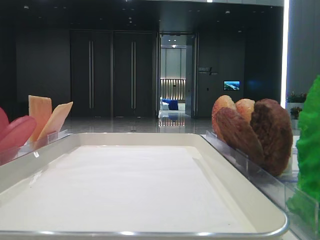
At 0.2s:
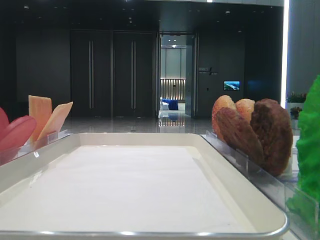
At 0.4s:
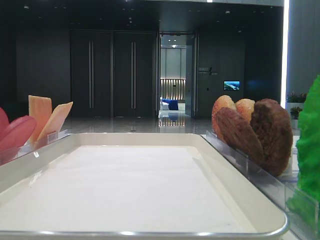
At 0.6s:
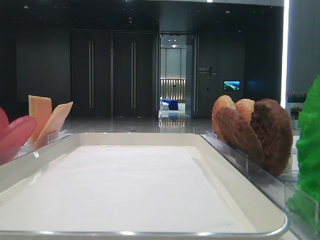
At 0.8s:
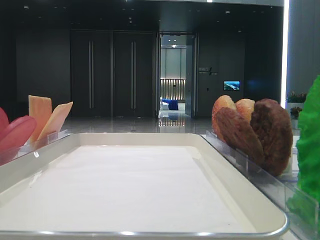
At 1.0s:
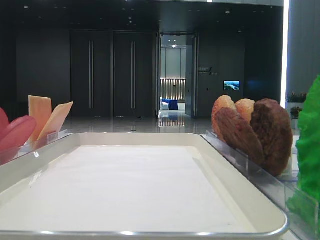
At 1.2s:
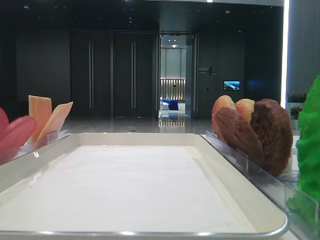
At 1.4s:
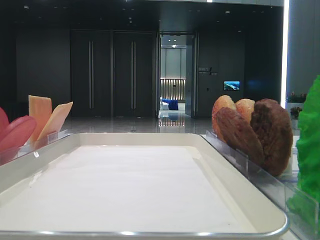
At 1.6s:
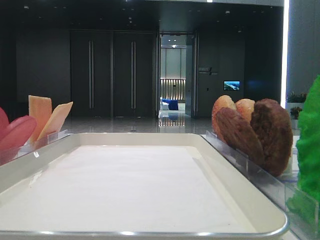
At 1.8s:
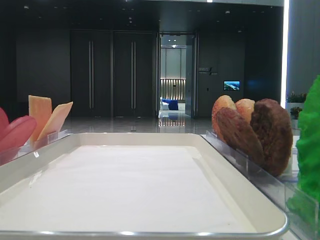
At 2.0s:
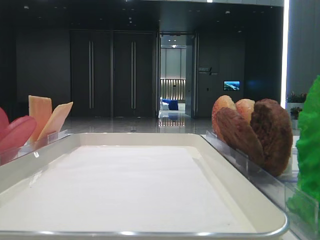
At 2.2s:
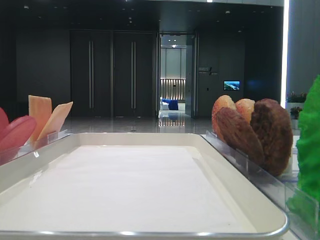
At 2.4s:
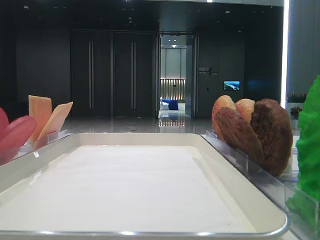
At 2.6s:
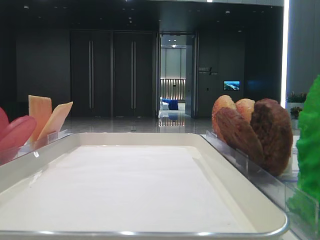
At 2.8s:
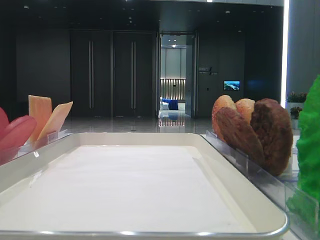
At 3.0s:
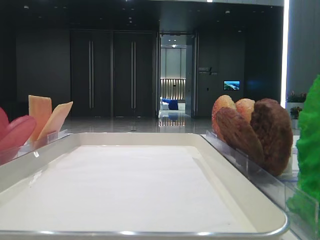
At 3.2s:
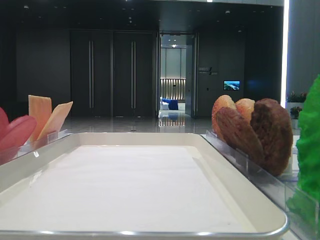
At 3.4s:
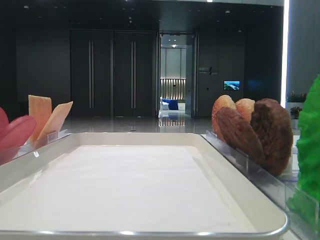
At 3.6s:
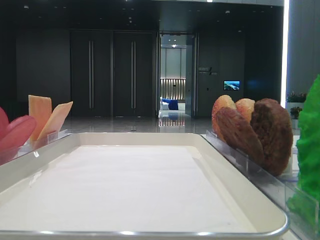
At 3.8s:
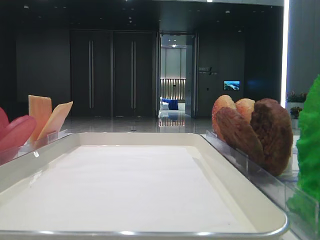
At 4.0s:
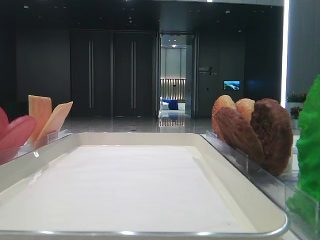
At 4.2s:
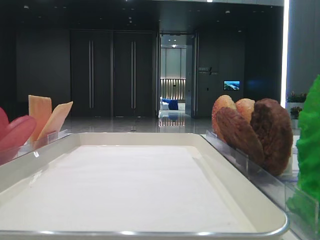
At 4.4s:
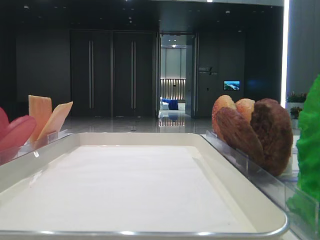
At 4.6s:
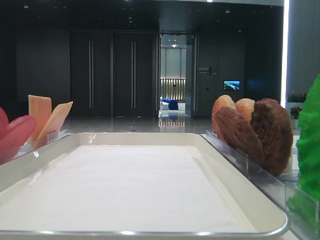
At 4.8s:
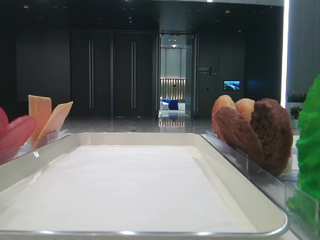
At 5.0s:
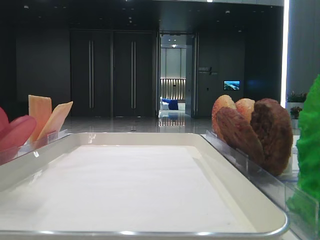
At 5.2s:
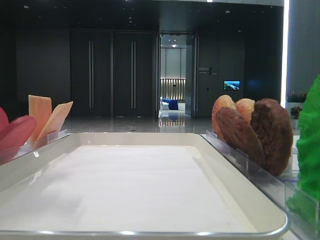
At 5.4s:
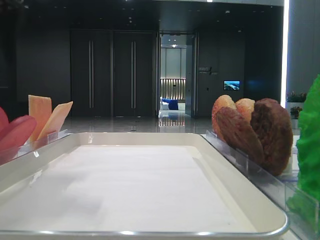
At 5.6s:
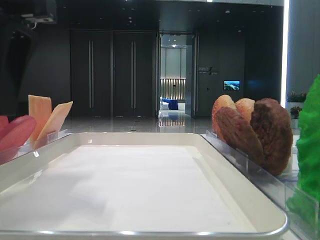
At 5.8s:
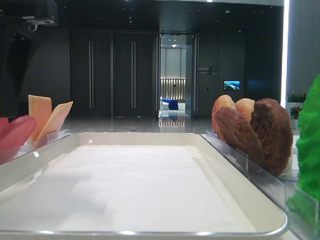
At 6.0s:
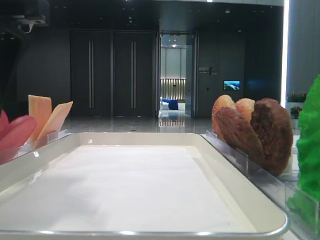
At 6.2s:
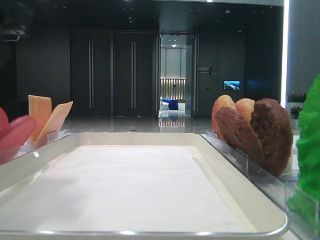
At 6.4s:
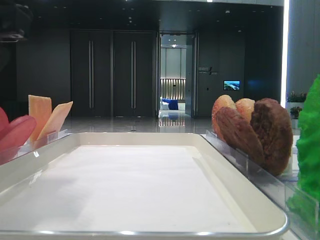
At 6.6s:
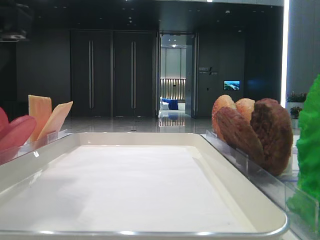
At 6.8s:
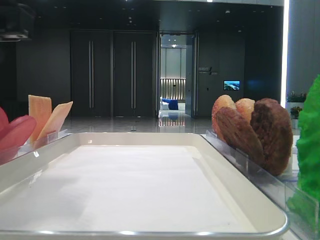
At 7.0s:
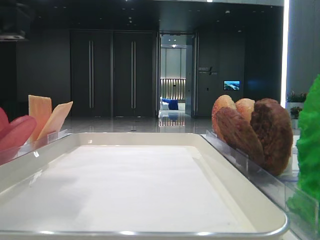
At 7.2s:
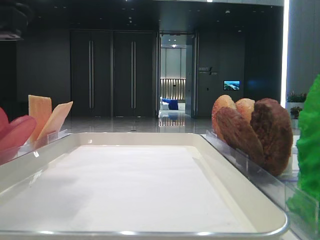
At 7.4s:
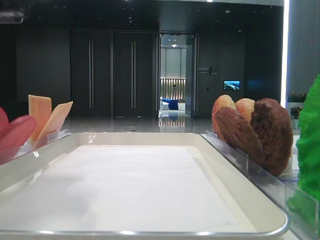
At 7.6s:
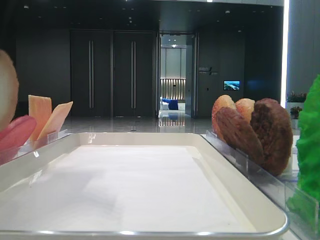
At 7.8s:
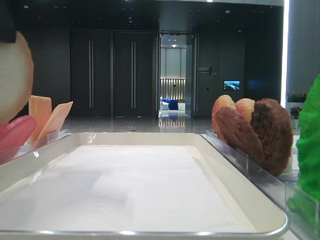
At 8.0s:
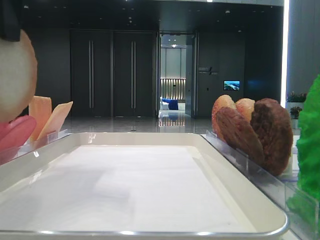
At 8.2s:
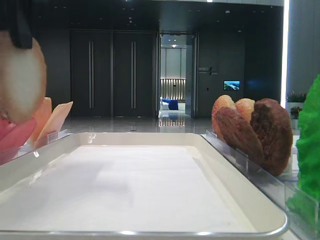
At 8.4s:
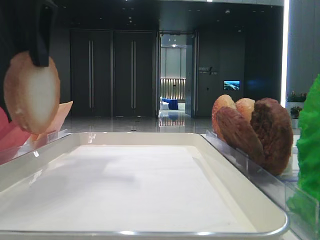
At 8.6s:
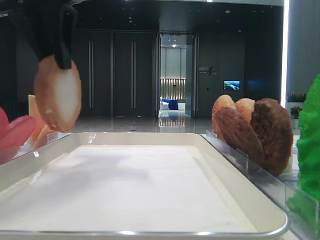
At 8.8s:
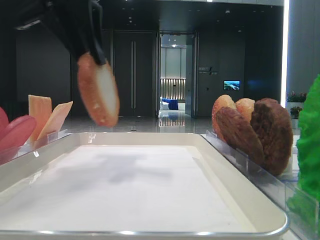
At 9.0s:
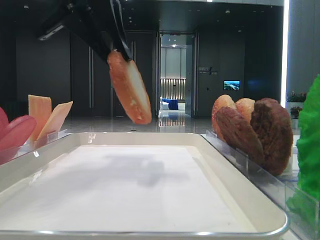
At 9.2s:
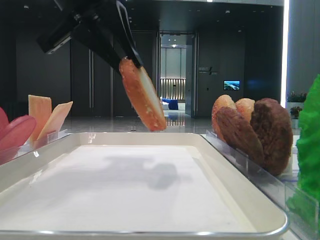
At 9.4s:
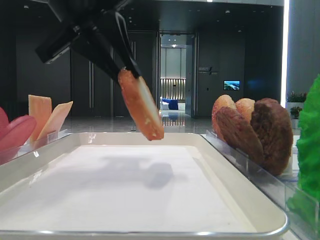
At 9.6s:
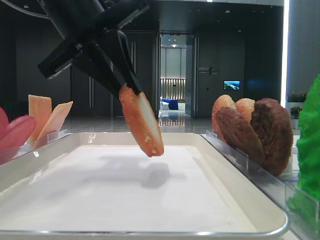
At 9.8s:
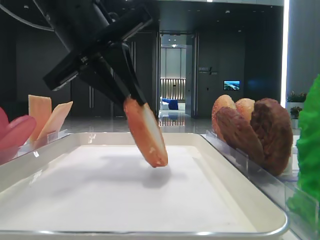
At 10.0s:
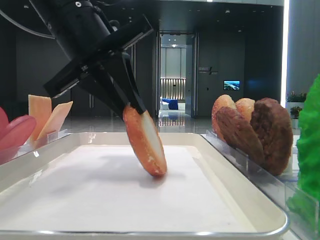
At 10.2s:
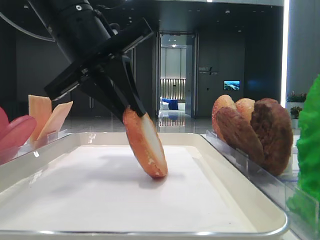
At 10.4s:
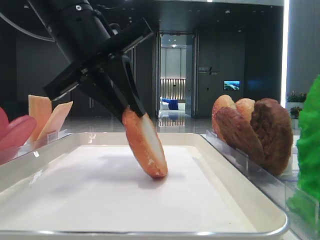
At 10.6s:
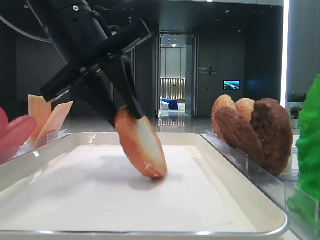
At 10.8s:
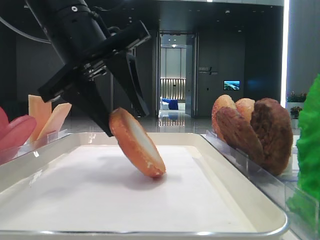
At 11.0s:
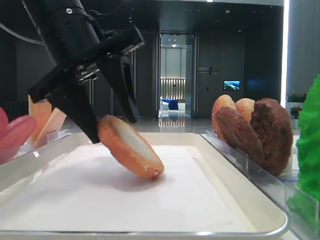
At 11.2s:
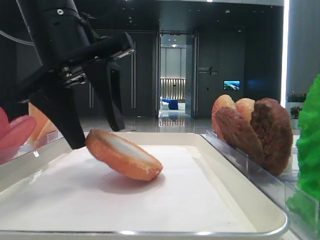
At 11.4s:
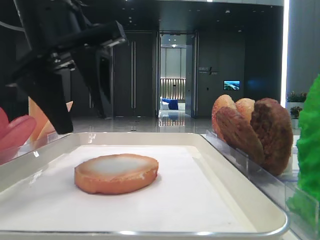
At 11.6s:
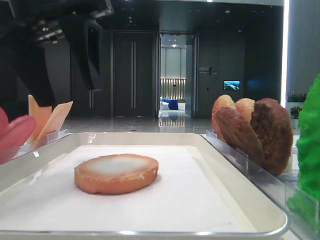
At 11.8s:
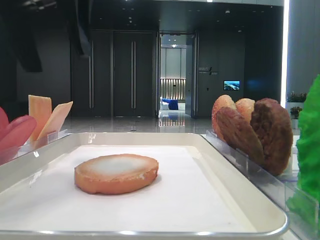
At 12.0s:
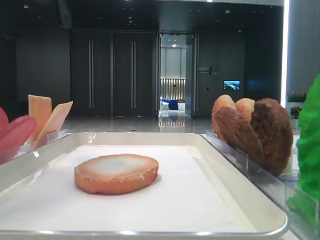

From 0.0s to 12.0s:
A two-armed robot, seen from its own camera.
Step, from 0.0s to 7.0s: Pick up the bottom bread with the left hand.
Step, from 7.4s to 11.2s: Place the bread on the tray with the left hand.
From 4.4s to 6.0s: The left gripper travels to the right by some 15 cm.
From 6.0s to 7.6s: The left gripper closes its fingers.
From 7.6s to 9.0s: The left gripper moves forward and to the right, roughly 10 cm.
From 9.0s to 10.4s: The left gripper heads downward, covering some 5 cm.
From 10.4s to 12.0s: The left gripper travels upward and to the left by about 15 cm, and opens its fingers.

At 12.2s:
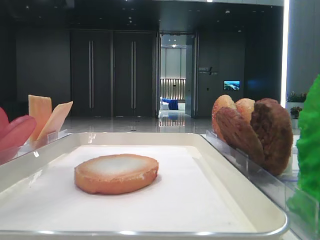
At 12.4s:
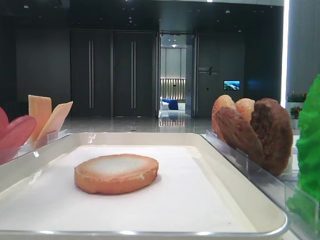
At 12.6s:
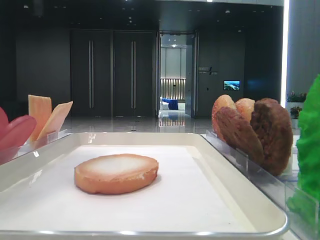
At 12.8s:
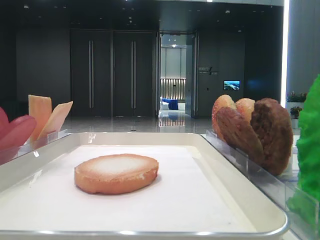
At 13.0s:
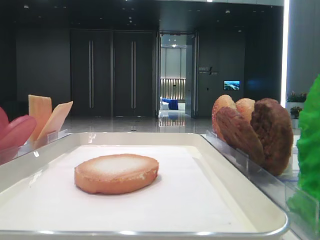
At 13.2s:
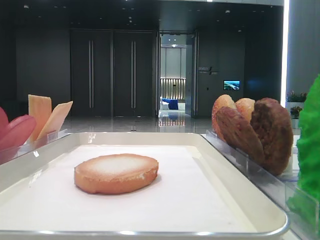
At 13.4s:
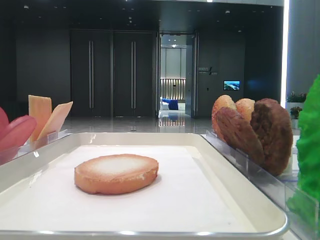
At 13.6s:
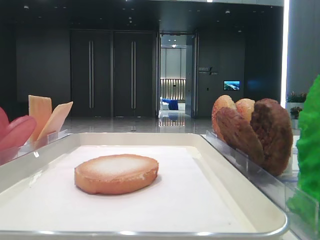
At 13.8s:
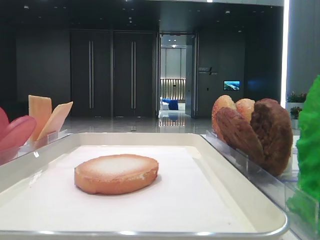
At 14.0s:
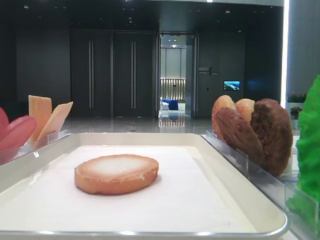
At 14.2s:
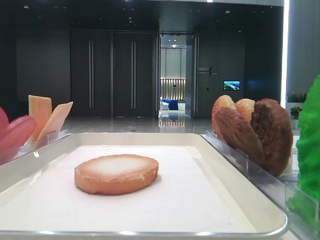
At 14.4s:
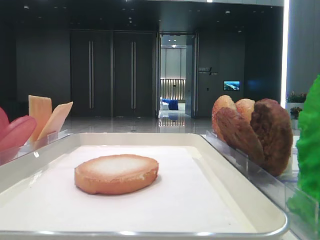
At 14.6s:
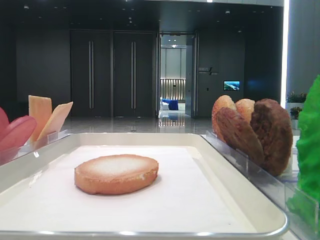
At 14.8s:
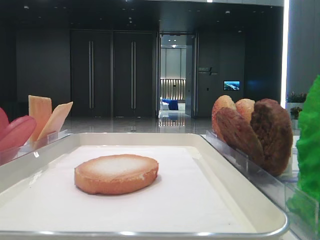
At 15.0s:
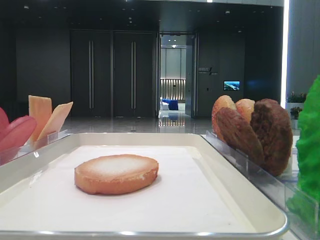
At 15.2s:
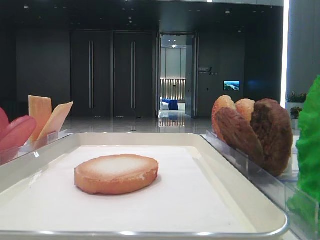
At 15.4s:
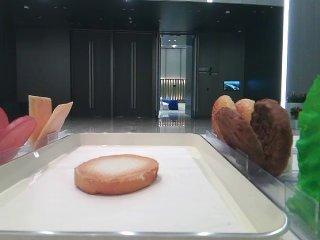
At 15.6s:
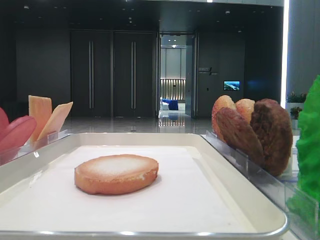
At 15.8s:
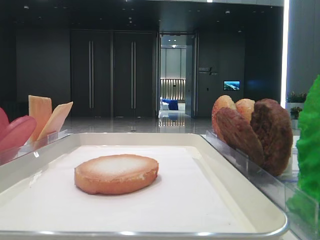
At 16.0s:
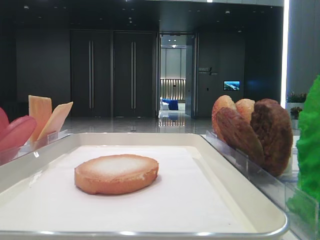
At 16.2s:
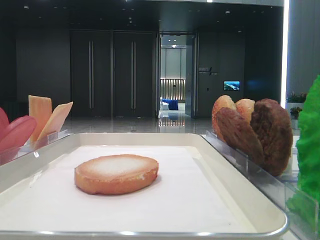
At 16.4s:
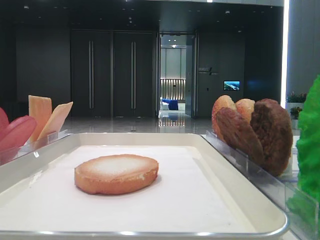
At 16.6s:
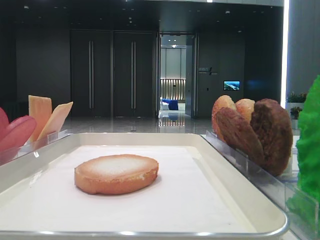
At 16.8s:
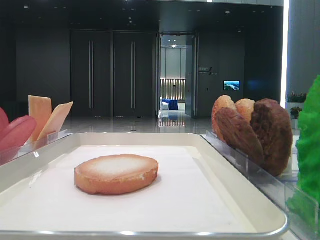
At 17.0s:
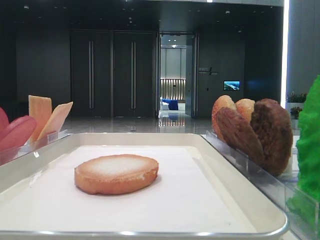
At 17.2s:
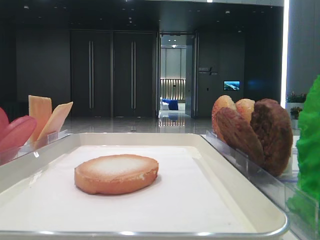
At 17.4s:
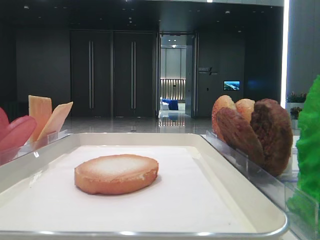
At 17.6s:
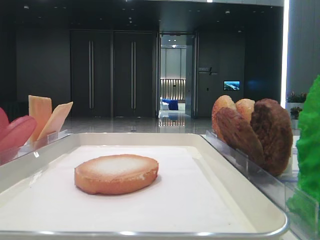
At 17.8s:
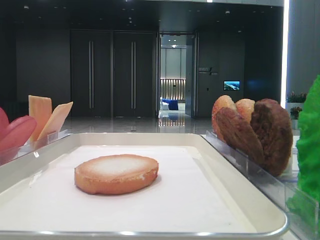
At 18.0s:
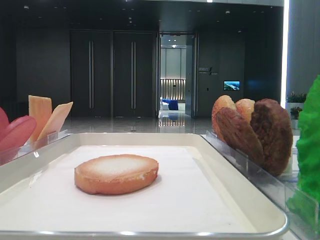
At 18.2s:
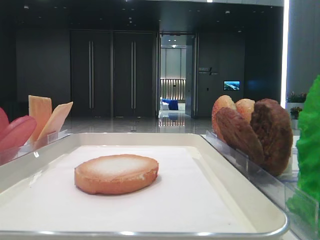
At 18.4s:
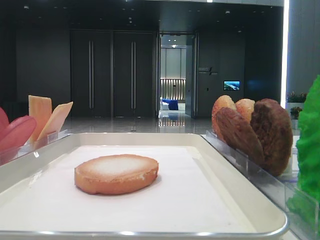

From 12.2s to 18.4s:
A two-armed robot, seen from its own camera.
From 12.2s to 13.8s: The left gripper moves backward and to the left, about 25 cm.
From 15.4s to 18.4s: Both grippers stay put.

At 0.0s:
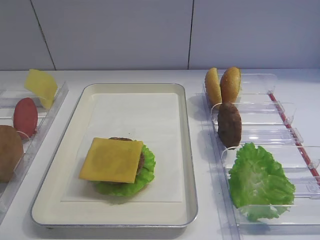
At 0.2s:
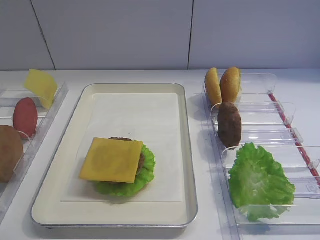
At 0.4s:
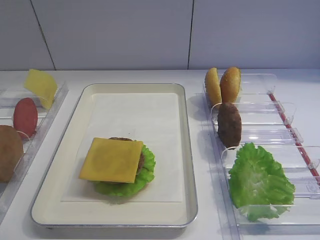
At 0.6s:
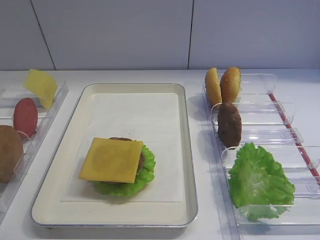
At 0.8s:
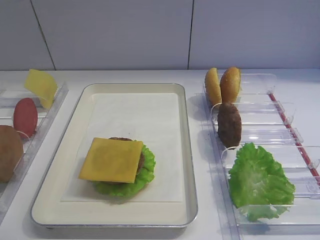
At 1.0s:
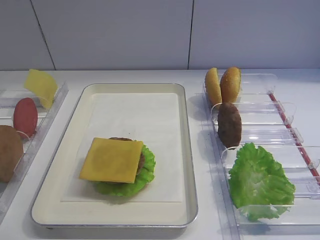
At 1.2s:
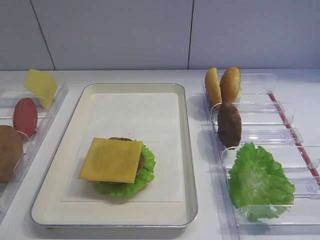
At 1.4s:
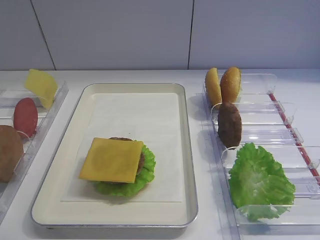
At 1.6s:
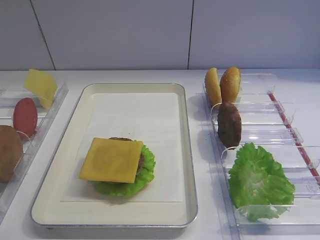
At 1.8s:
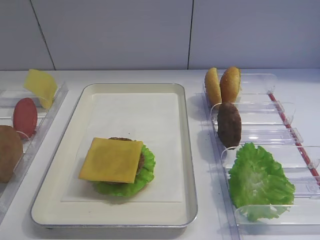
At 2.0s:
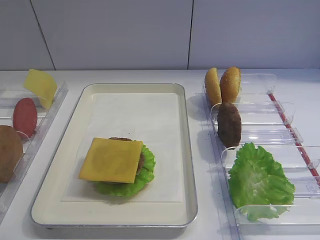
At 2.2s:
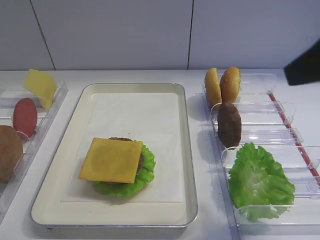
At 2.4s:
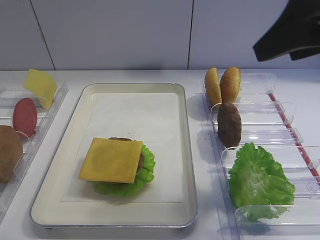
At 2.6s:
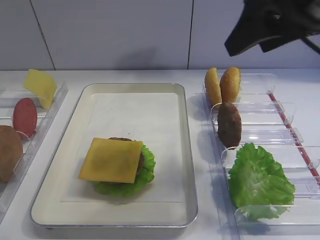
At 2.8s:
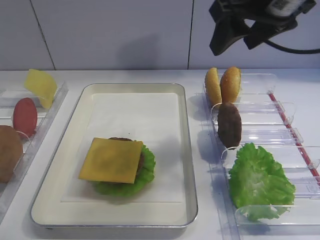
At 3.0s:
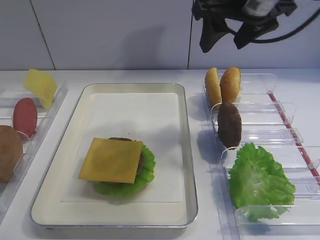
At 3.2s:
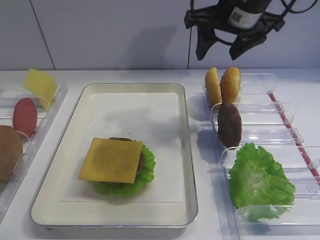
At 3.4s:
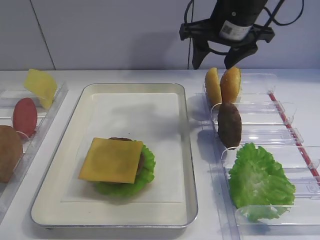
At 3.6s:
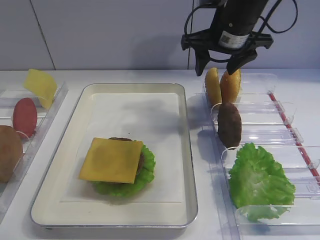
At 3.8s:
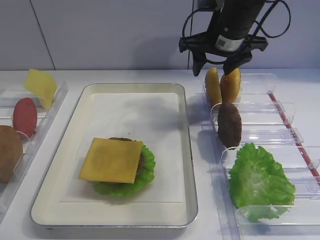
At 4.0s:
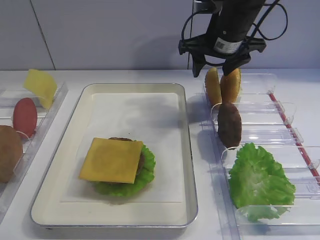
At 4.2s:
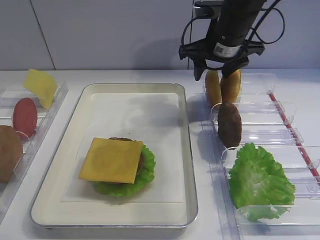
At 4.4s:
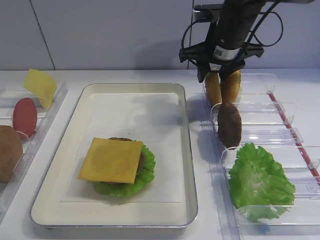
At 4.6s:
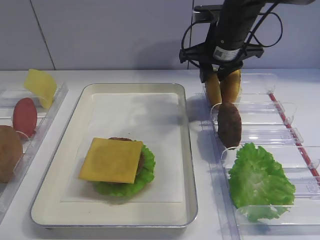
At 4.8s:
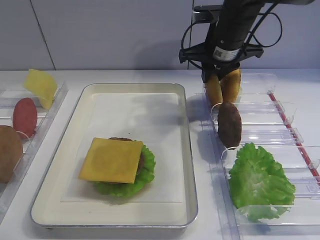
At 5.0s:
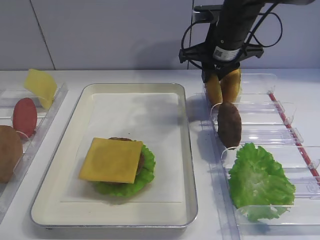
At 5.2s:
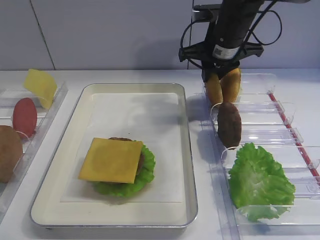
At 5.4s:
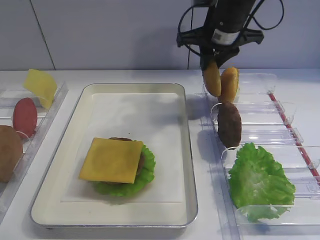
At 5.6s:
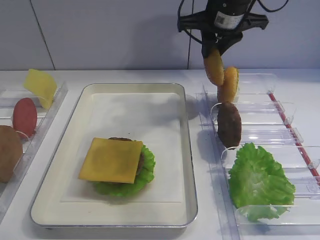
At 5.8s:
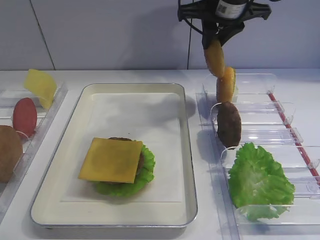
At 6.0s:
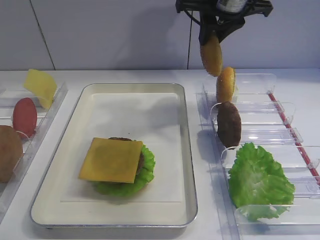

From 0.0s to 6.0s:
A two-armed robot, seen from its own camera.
Step, from 0.0s to 5.8s: Pick up the hamburger lid with the right gripper.
From 1.6s to 3.0s: The right gripper shifts approximately 35 cm forward and to the left.
From 3.0s to 4.4s: The right gripper travels downward and forward by approximately 15 cm.
From 4.4s to 6.0s: The right gripper shifts some 10 cm upward, and closes up.
